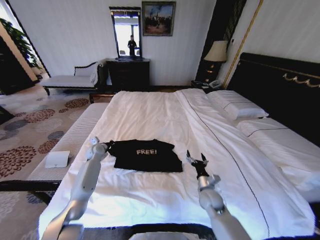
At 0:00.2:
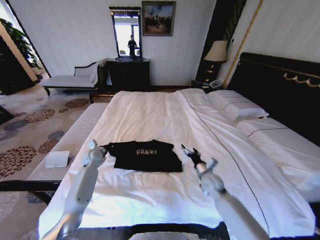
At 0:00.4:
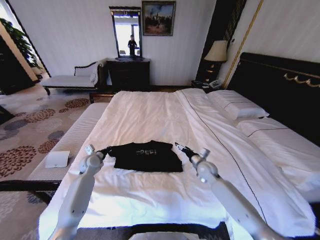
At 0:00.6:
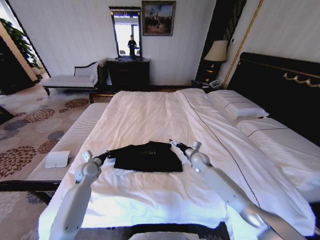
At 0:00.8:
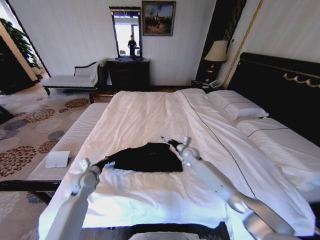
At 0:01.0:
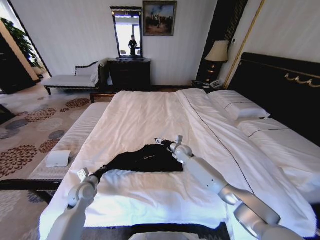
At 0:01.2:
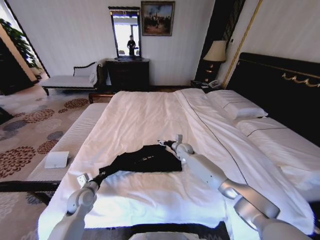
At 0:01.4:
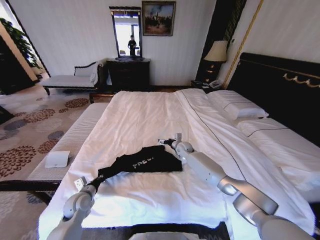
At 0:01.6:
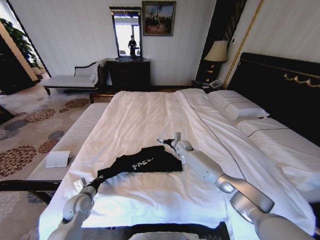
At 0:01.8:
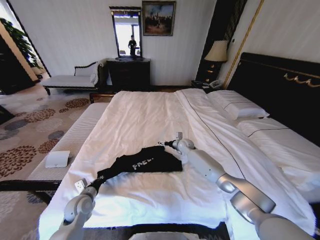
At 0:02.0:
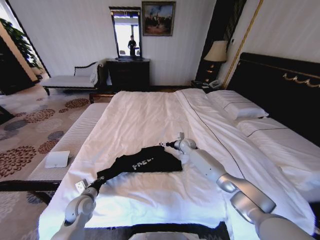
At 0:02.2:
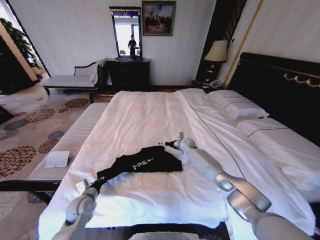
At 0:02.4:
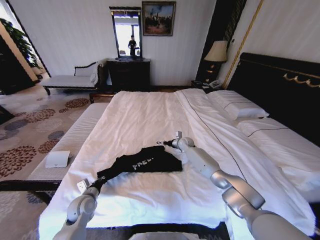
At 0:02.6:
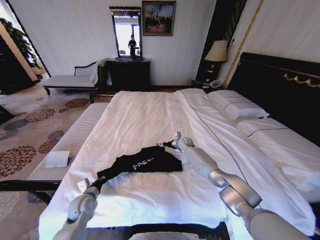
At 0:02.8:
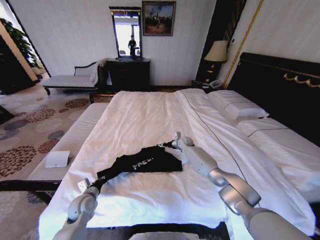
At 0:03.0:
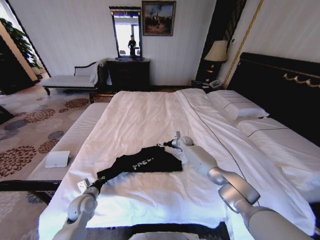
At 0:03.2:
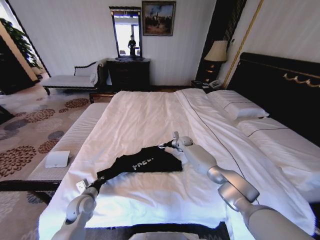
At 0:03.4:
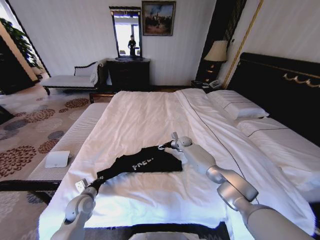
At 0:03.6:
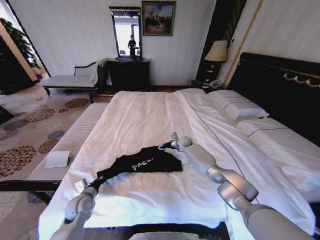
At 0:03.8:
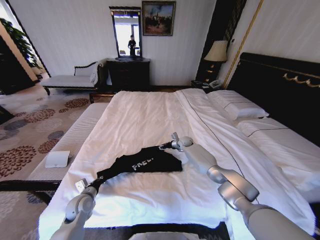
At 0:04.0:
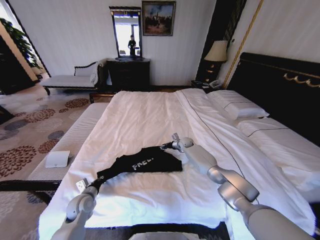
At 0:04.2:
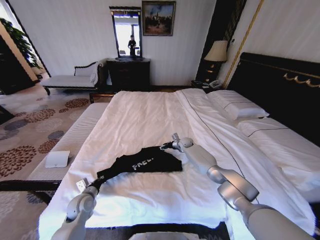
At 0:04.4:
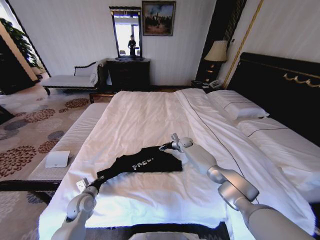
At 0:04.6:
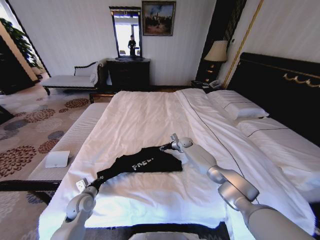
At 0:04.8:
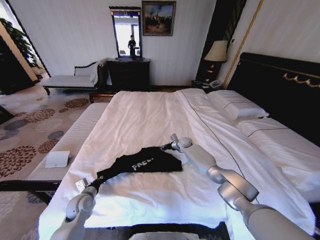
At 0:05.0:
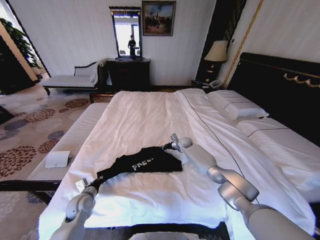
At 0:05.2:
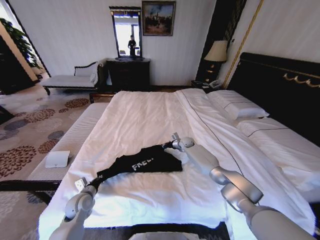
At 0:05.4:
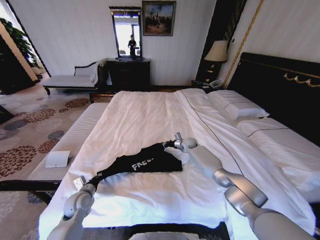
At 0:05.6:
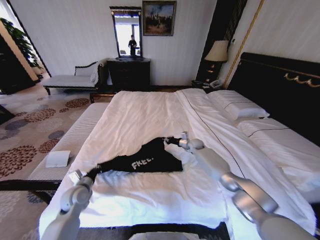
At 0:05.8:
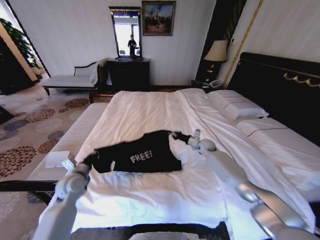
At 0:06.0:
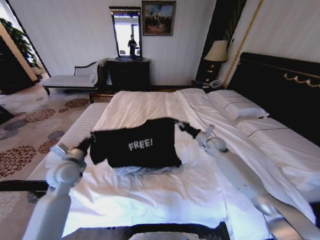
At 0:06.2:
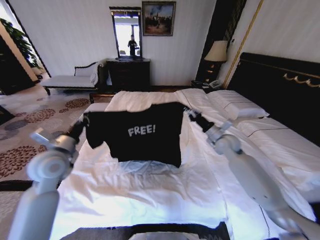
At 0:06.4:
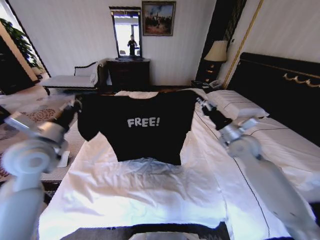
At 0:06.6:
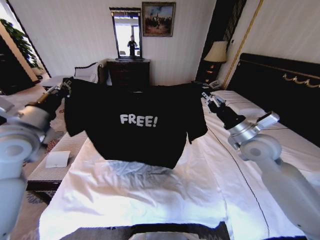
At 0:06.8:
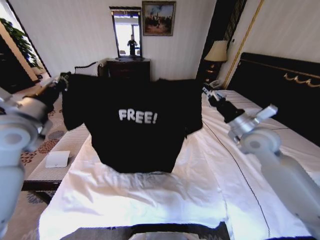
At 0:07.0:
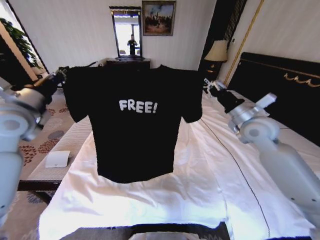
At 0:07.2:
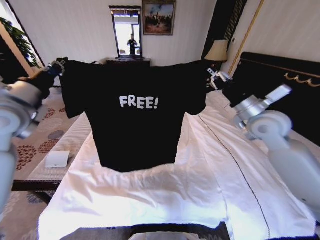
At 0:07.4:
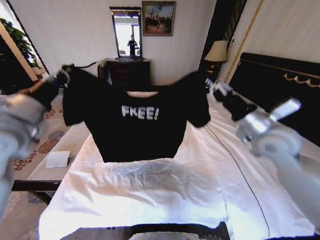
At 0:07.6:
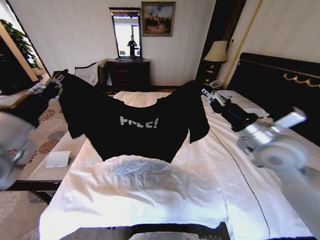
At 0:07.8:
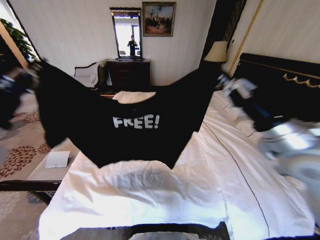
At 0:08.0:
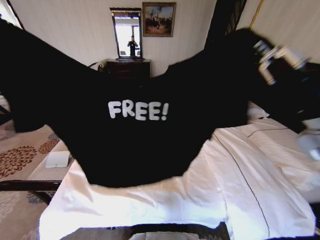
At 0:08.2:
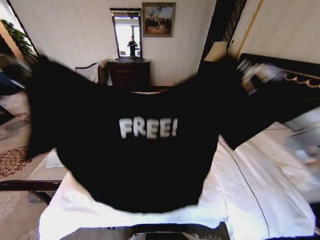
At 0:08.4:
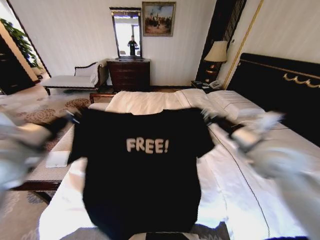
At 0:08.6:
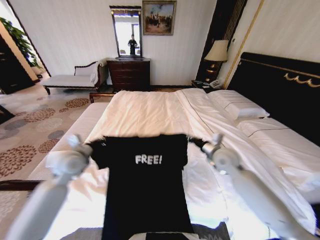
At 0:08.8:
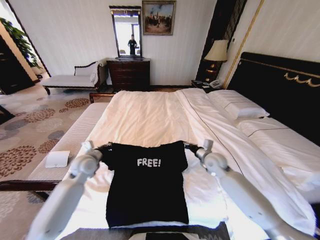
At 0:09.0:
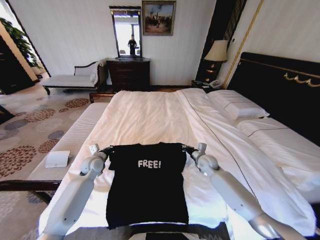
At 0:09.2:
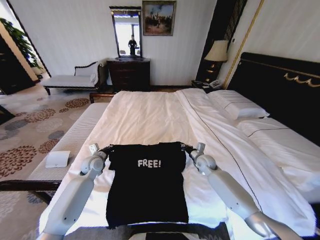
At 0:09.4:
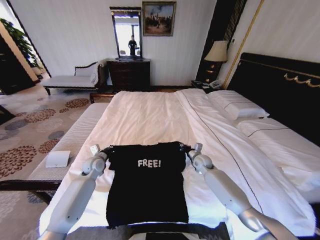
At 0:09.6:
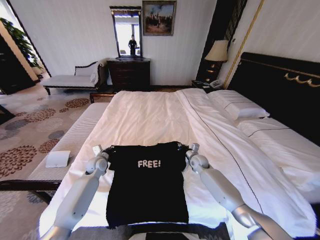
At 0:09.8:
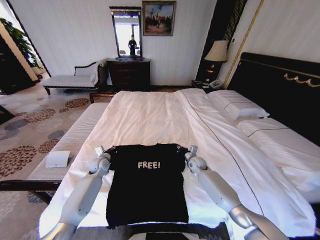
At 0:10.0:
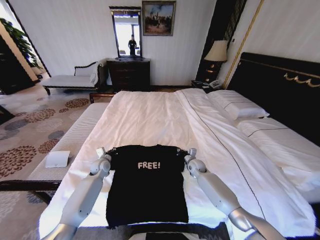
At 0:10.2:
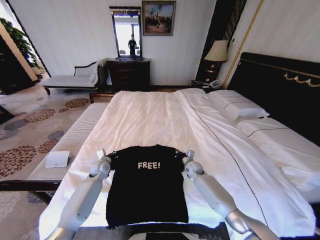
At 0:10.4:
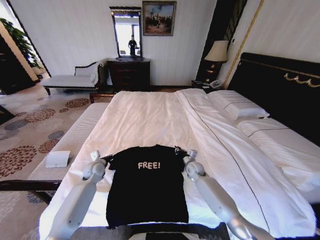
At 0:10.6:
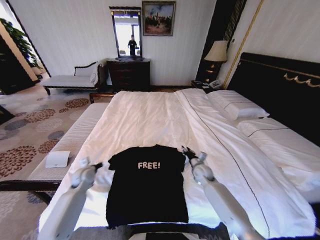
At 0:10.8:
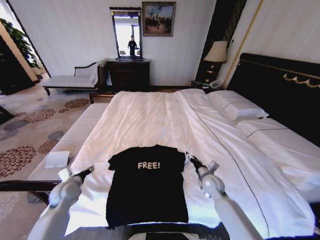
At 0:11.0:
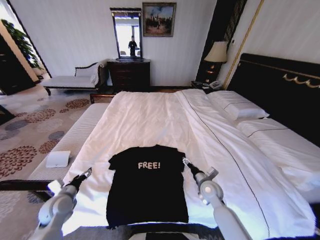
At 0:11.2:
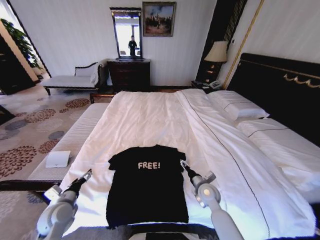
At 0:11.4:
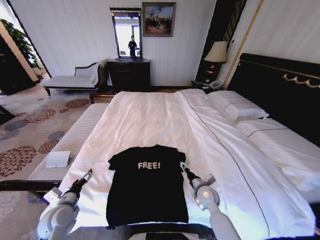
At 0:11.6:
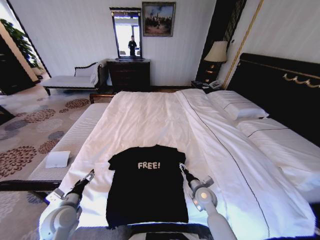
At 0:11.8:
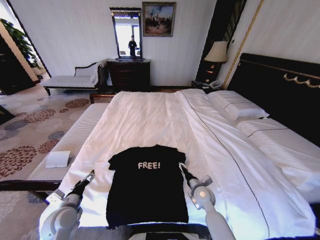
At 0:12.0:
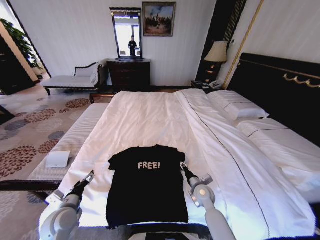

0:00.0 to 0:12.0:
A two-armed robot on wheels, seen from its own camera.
Task of the whole recording: Fold the clothes on the bed.
0:00.0 to 0:01.6: The right gripper heads forward, covering about 30 cm. Meanwhile the left gripper goes some 25 cm backward.
0:01.6 to 0:03.0: The right gripper moves about 5 cm.
0:04.4 to 0:06.0: The right gripper is displaced upward, backward and to the right by some 20 cm, and closes up. Meanwhile the left gripper goes about 20 cm upward.
0:06.0 to 0:07.6: The left gripper heads upward and backward, covering some 20 cm, while the right gripper heads backward and upward, covering some 25 cm.
0:07.6 to 0:09.0: The grippers both shift downward and forward by roughly 35 cm.
0:09.0 to 0:10.4: The right gripper travels downward by approximately 5 cm.
0:10.4 to 0:12.0: The right gripper shifts about 15 cm backward, and opens up, while the left gripper travels backward by some 20 cm, and opens.

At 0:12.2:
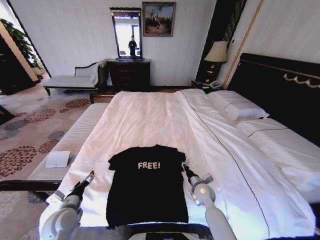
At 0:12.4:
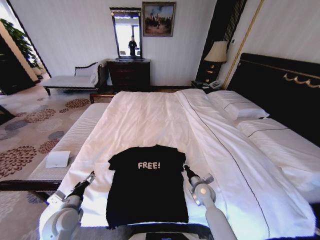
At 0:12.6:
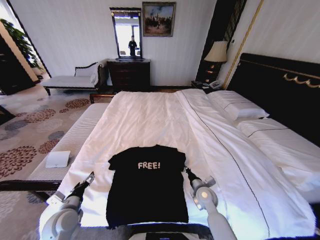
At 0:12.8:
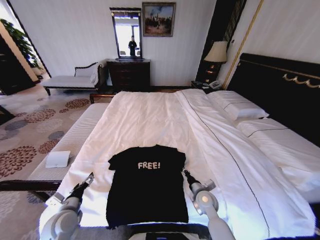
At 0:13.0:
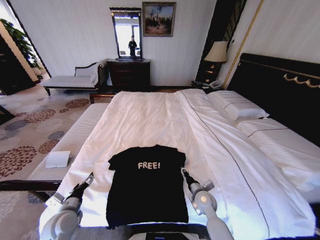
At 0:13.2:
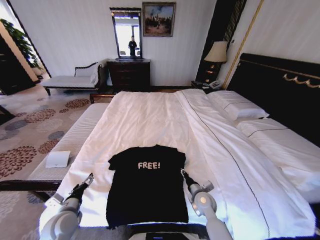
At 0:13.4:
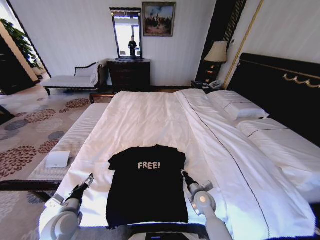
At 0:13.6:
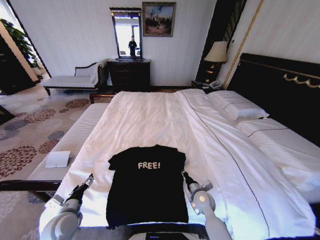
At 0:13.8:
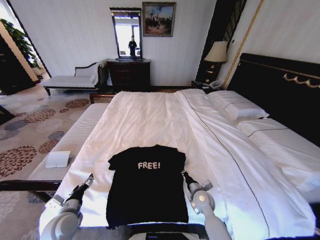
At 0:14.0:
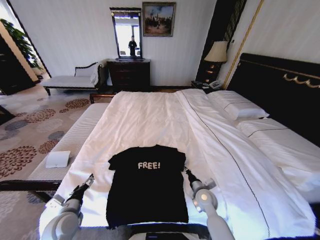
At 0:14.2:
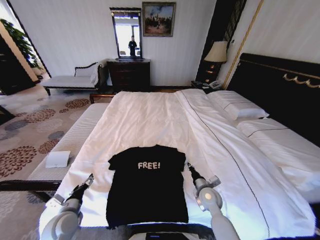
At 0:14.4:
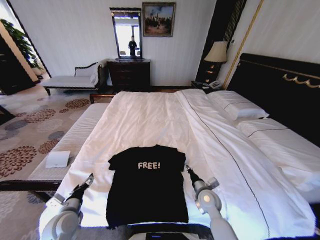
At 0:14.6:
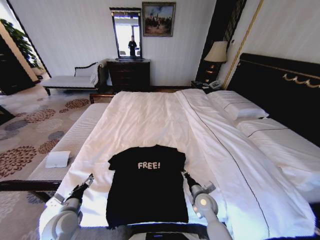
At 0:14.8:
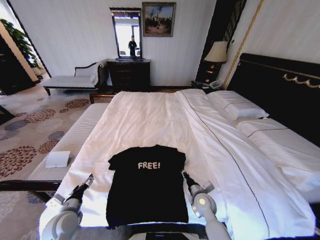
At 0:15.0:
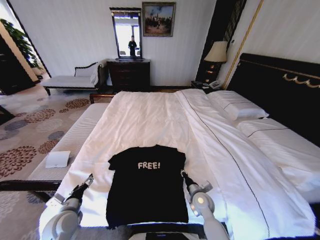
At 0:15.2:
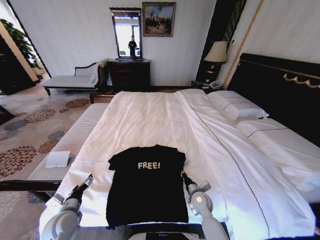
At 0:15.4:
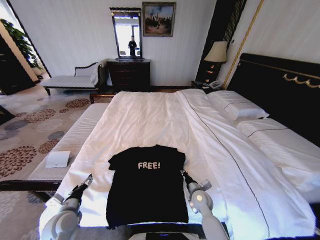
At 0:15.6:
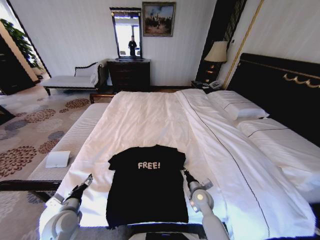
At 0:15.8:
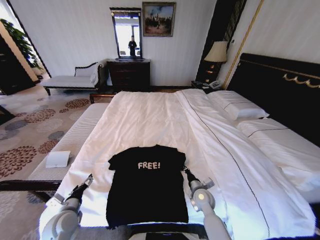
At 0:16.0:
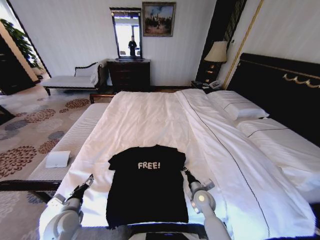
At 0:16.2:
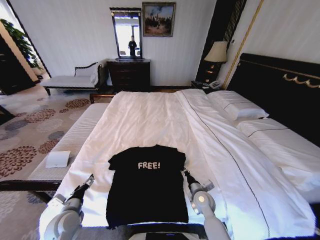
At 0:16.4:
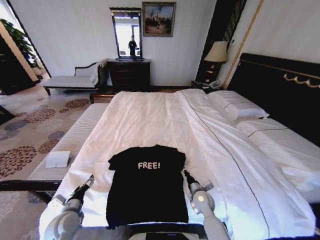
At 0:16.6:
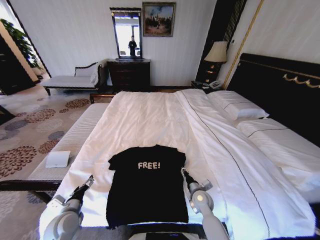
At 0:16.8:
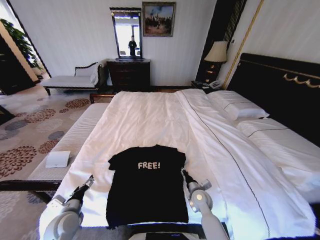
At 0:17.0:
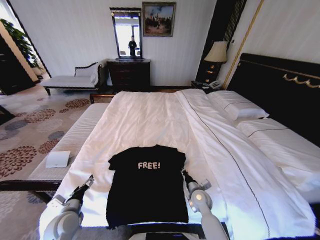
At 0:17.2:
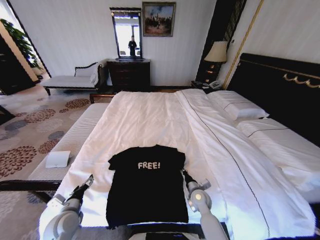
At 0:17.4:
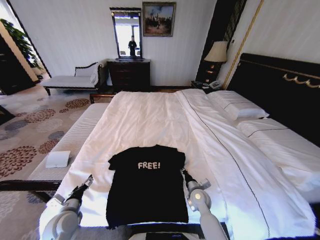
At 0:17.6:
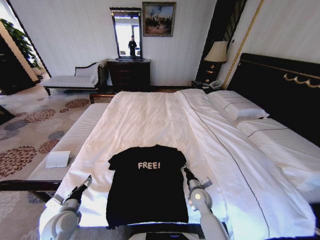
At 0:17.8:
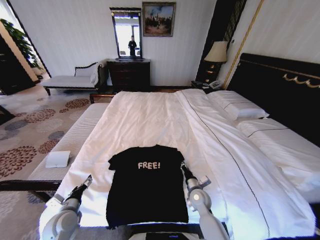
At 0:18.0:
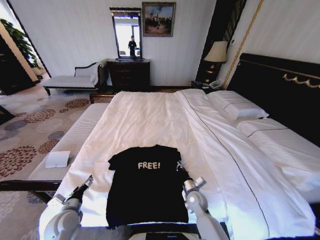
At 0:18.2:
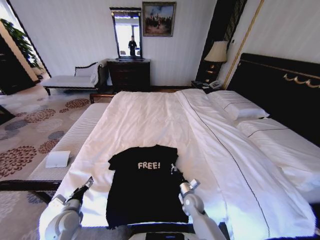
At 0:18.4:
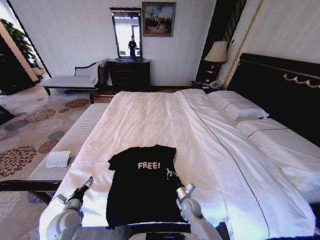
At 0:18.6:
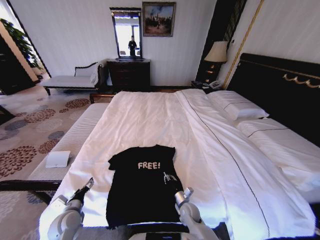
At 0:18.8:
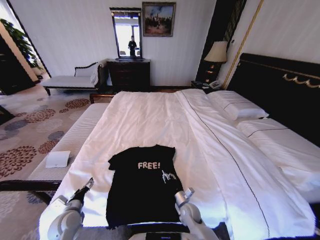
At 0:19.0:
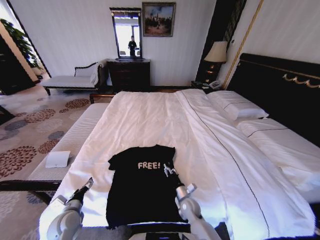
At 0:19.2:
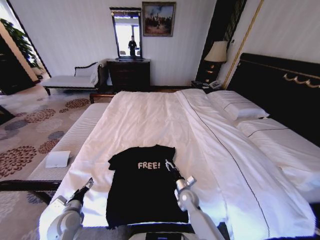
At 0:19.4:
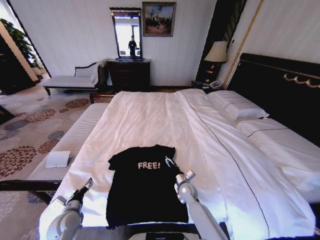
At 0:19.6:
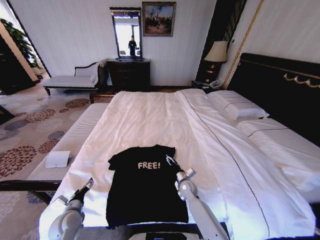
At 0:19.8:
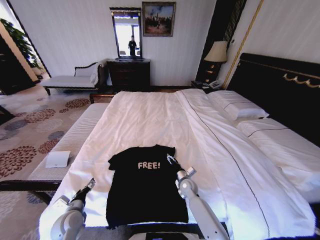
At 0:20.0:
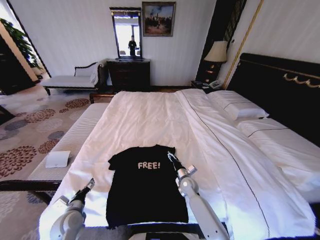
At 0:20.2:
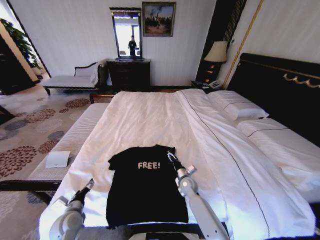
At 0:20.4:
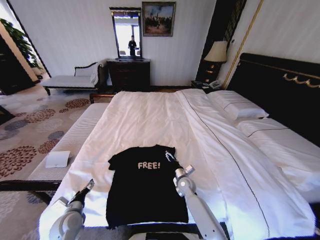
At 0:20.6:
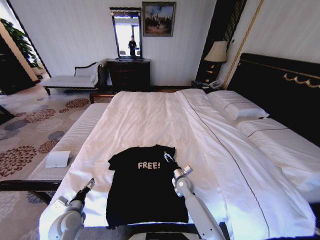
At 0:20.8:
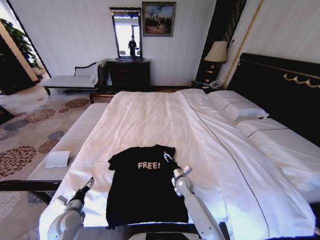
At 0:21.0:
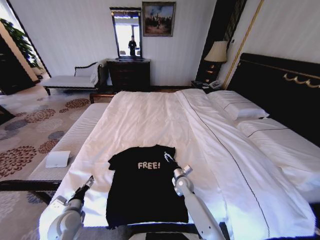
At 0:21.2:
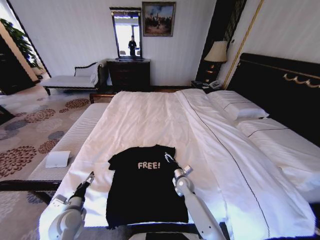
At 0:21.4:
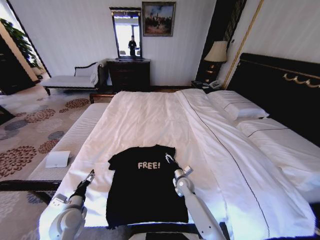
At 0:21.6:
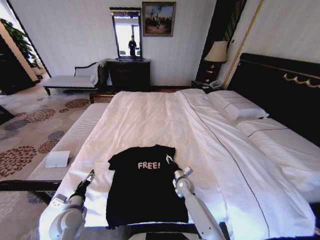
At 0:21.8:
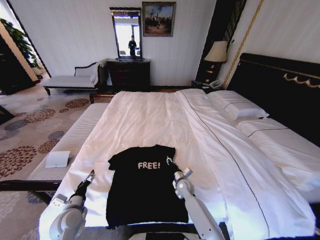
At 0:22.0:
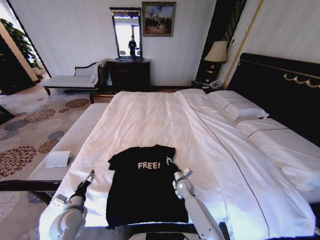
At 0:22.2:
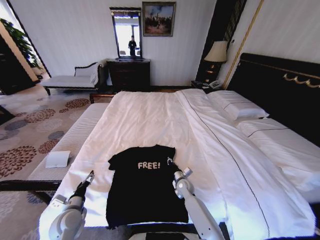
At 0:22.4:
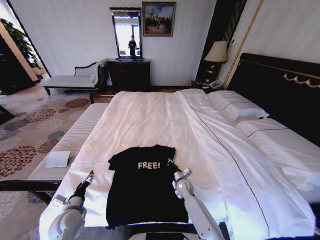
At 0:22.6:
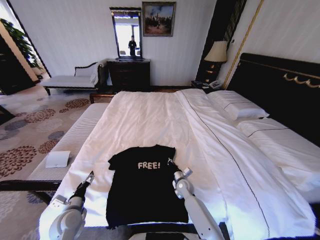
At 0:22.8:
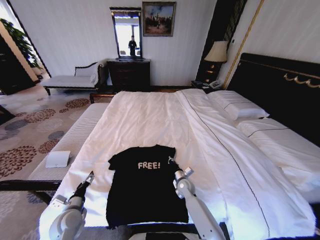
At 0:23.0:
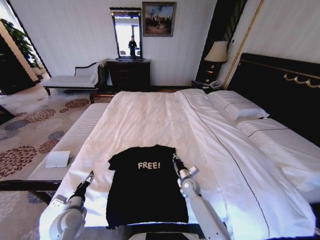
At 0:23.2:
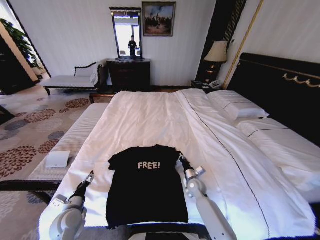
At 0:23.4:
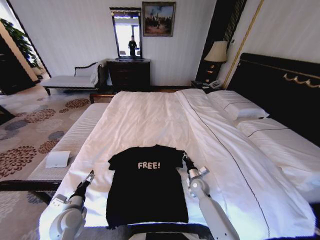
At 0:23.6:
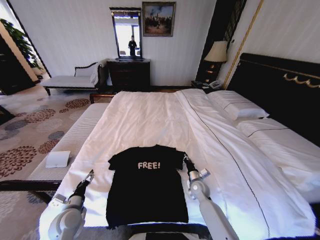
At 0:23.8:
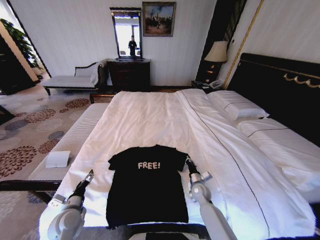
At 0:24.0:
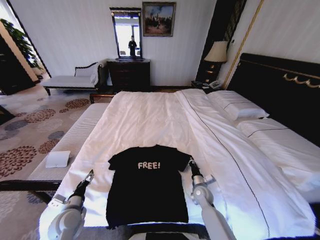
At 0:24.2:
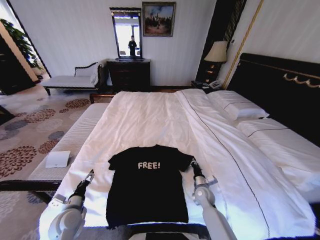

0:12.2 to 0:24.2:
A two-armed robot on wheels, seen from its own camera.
Task of the whole recording: Fold the clothes on the bed.
0:12.2 to 0:13.8: The right gripper closes.
0:13.8 to 0:15.2: The grippers stay close to where they were, moving slightly.
0:15.2 to 0:16.6: The right gripper opens up.
0:16.6 to 0:18.2: The right gripper goes roughly 5 cm downward, and closes.
0:18.2 to 0:19.8: The right gripper goes approximately 5 cm forward, and opens up.
0:19.8 to 0:21.2: The grippers move only a little.
0:21.2 to 0:22.6: The right gripper closes its fingers.
0:22.6 to 0:24.2: The right gripper travels to the right by approximately 10 cm.
